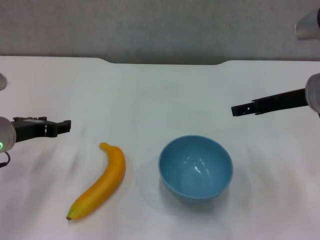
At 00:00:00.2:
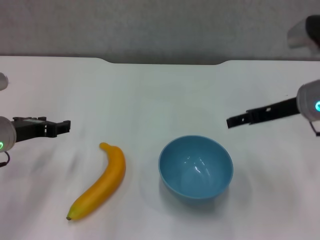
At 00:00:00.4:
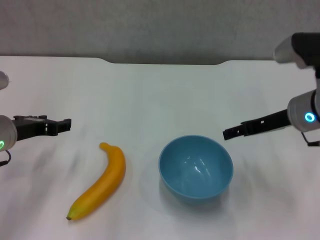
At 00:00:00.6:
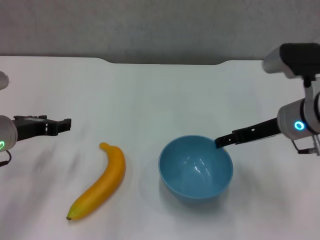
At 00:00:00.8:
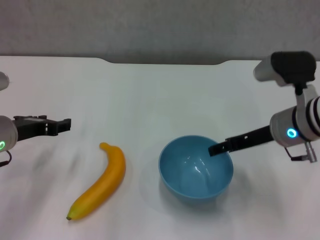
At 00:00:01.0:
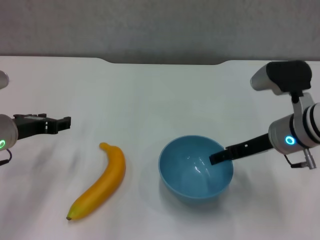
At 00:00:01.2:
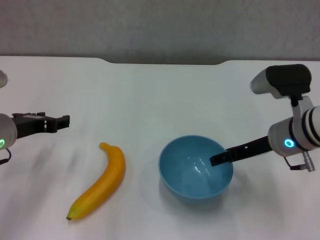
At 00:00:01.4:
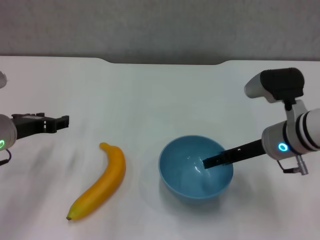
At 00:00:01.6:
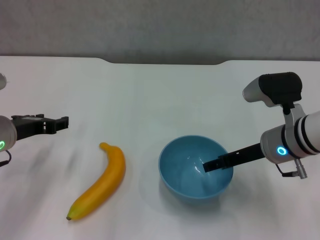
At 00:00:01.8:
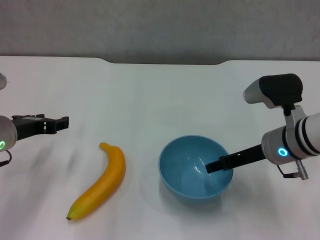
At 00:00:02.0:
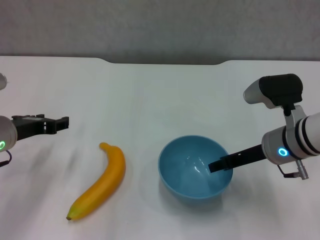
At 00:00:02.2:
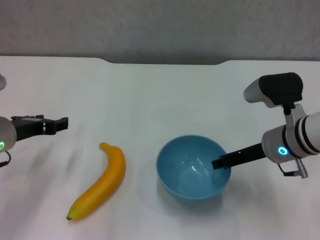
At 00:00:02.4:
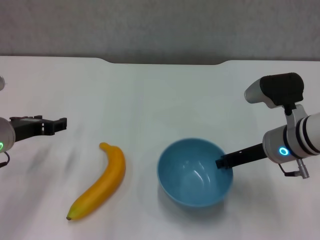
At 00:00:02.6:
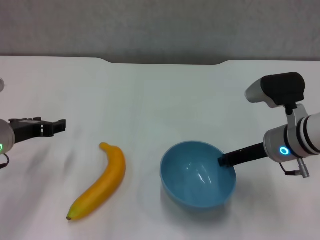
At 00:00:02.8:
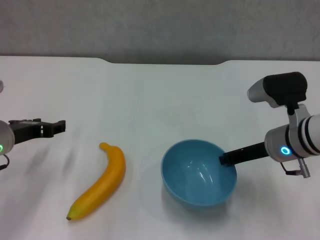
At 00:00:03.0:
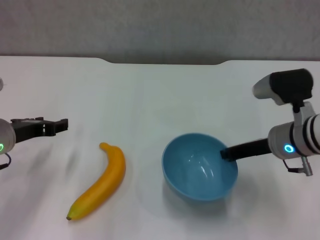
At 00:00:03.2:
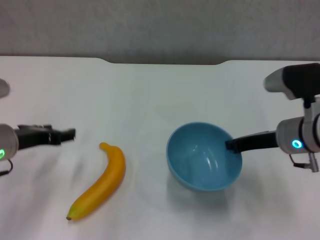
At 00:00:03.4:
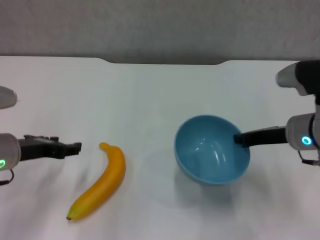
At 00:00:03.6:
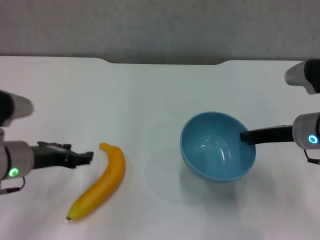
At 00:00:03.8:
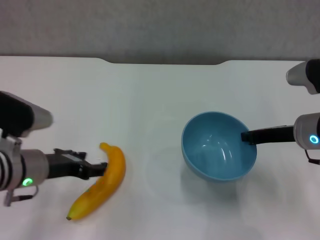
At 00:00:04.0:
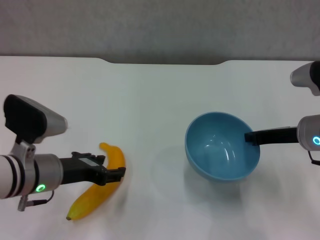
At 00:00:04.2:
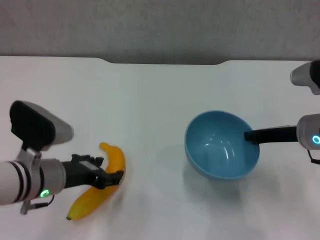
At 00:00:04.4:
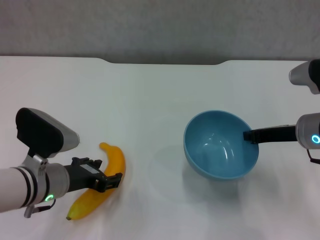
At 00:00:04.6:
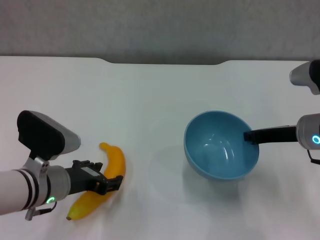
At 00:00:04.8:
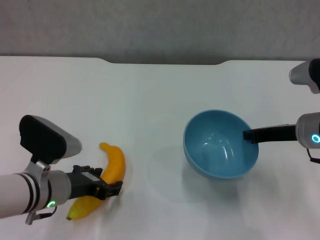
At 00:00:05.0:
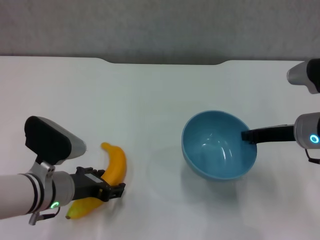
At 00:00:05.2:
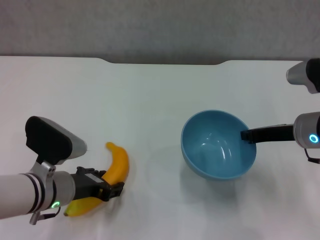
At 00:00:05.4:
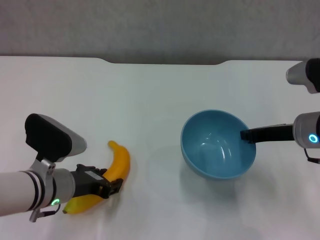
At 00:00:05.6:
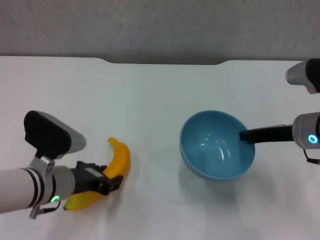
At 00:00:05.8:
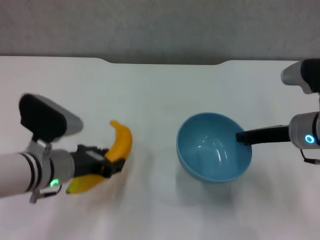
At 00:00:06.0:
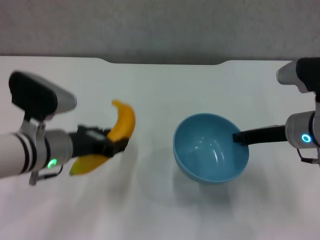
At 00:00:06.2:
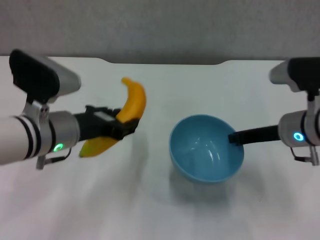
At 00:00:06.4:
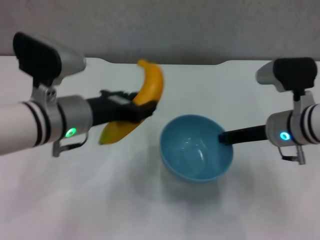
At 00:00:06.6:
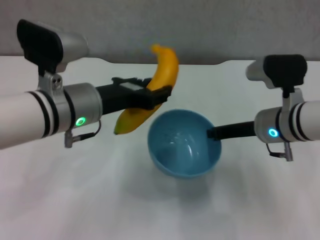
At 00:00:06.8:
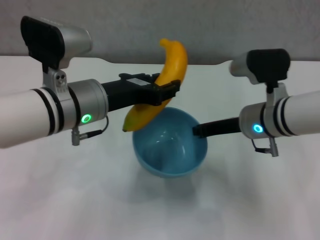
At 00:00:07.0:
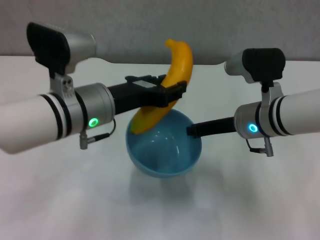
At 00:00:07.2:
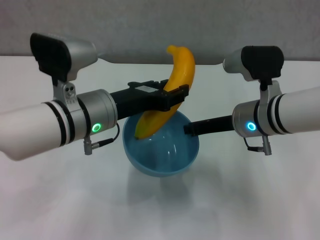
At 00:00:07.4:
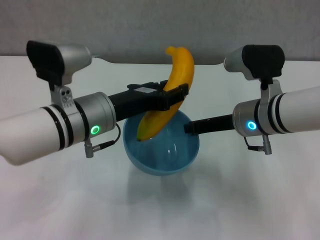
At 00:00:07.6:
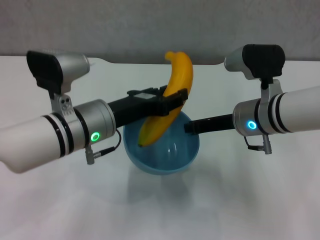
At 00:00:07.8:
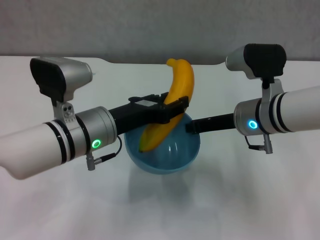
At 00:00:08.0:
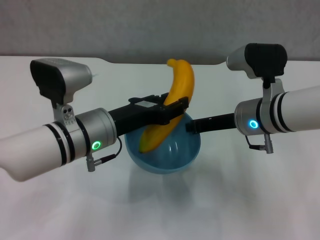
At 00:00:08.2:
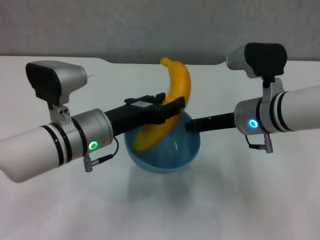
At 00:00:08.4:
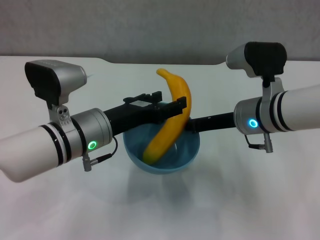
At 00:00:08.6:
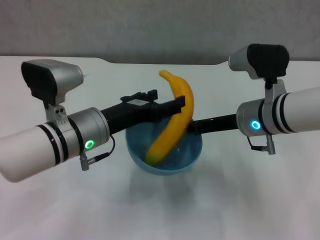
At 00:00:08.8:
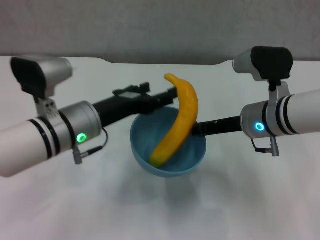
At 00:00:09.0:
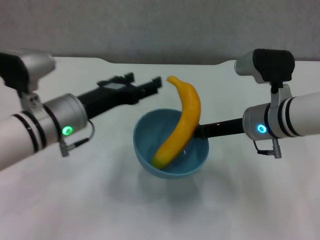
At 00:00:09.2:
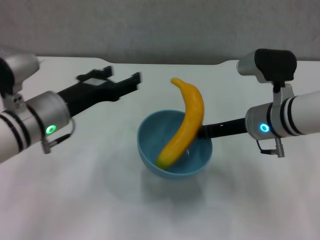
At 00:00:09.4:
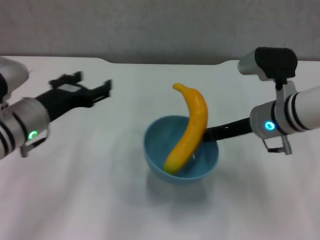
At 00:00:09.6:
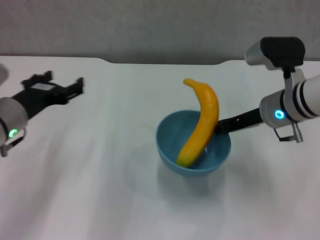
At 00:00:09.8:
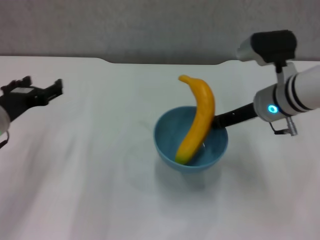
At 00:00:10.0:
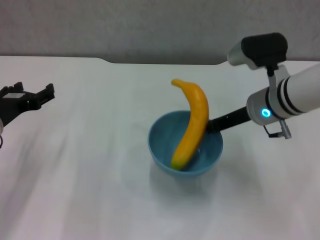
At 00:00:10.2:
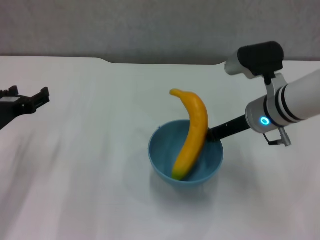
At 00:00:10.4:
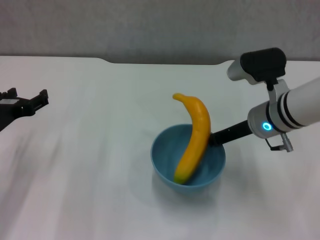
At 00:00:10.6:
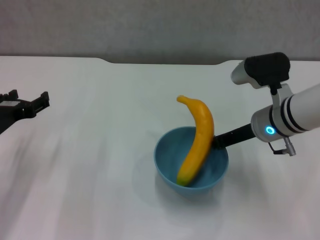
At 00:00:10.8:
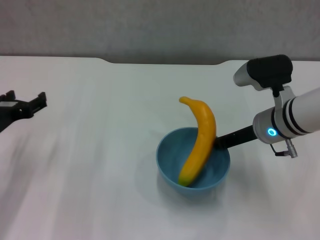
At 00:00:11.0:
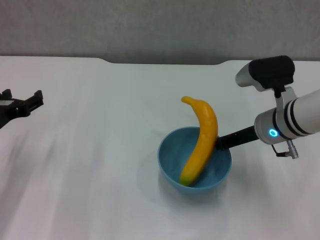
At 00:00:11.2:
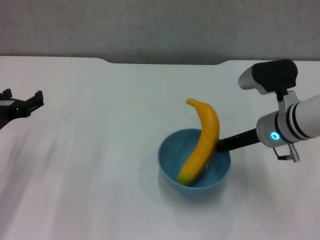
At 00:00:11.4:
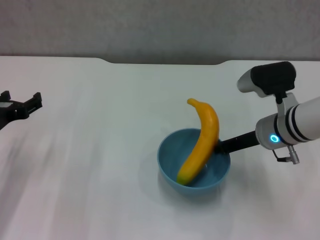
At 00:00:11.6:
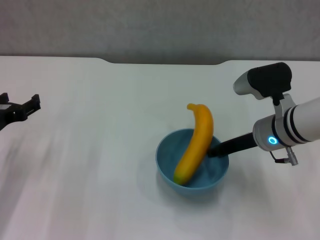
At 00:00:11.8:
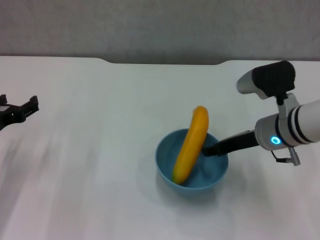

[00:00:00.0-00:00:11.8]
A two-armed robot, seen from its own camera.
Step, 00:00:00.0 to 00:00:02.6: Grasp the blue bowl with right gripper.
Step, 00:00:02.8 to 00:00:03.4: Lift the blue bowl with right gripper.
Step, 00:00:03.8 to 00:00:05.2: Grasp the banana with left gripper.
Step, 00:00:05.4 to 00:00:08.4: Place the banana in the blue bowl with left gripper.
00:00:00.0 to 00:00:01.4: The right gripper shifts about 10 cm downward.
00:00:01.4 to 00:00:03.0: The right gripper closes its fingers.
00:00:03.0 to 00:00:04.4: The left gripper goes approximately 5 cm to the right.
00:00:04.4 to 00:00:06.0: The left gripper shifts by some 5 cm.
00:00:06.0 to 00:00:07.4: The right gripper travels to the left by about 5 cm, while the left gripper moves to the right, roughly 5 cm.
00:00:07.4 to 00:00:08.8: The left gripper opens up.
00:00:08.8 to 00:00:10.4: The left gripper heads to the left, covering some 15 cm.
00:00:10.4 to 00:00:11.8: There are only small adjustments of the grippers.

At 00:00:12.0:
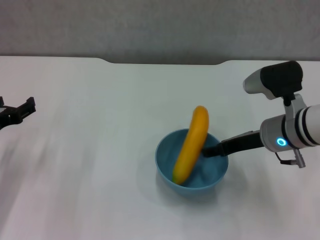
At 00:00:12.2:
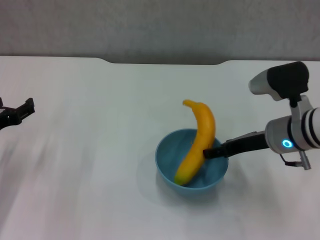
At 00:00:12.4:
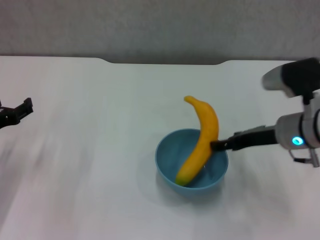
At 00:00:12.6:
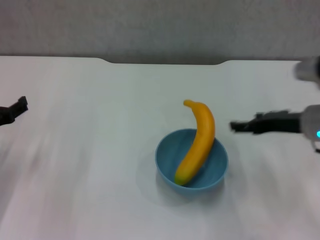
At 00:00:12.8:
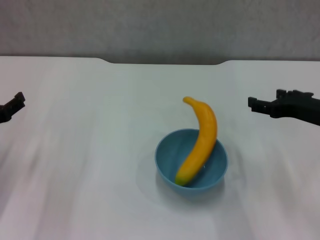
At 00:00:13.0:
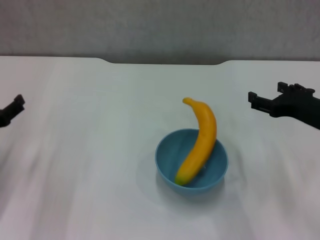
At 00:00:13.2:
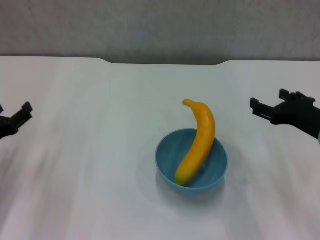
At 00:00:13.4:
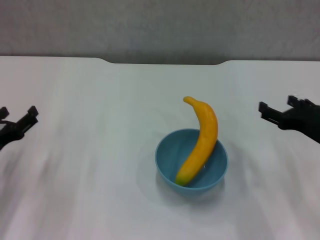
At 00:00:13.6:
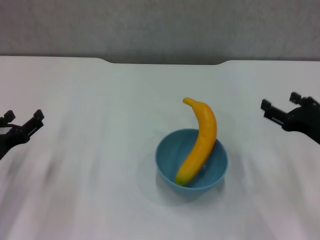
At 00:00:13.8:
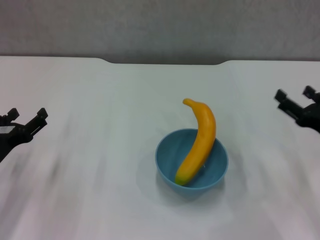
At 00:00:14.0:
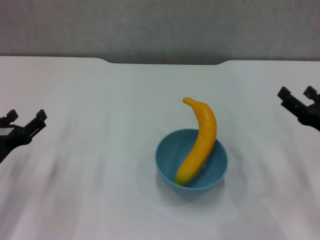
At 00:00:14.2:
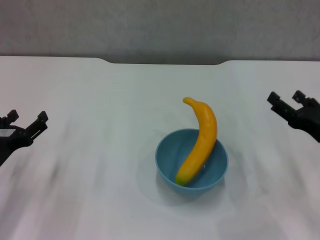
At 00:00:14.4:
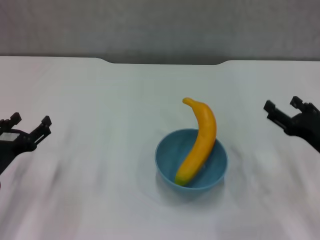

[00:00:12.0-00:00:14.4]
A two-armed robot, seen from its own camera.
00:00:12.0 to 00:00:13.2: The right gripper heads to the right, covering roughly 5 cm, and opens.
00:00:13.2 to 00:00:14.4: The right gripper changes place by roughly 5 cm.
